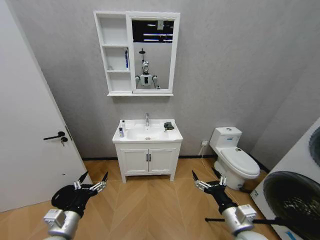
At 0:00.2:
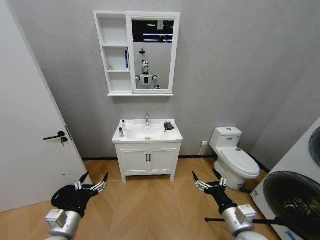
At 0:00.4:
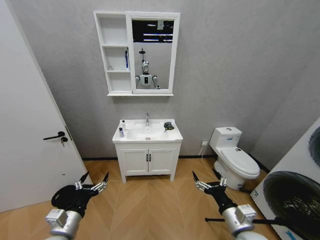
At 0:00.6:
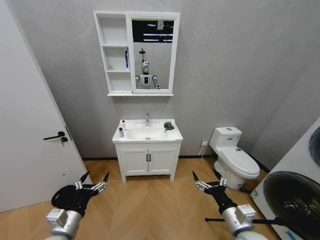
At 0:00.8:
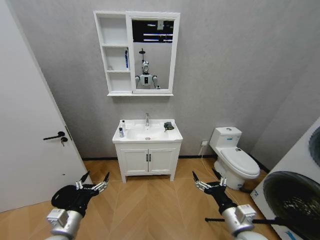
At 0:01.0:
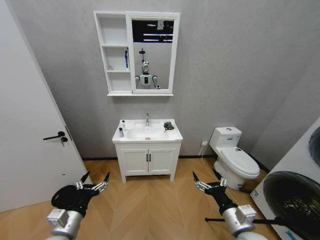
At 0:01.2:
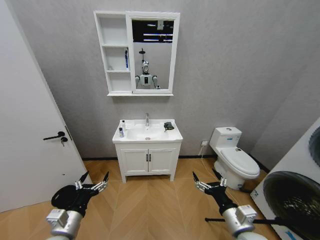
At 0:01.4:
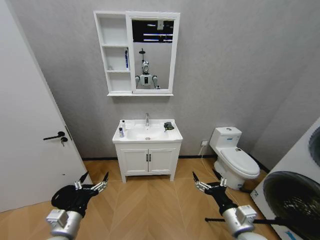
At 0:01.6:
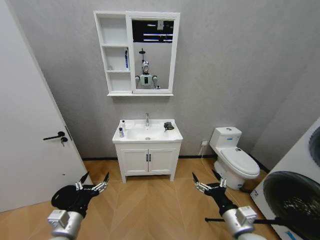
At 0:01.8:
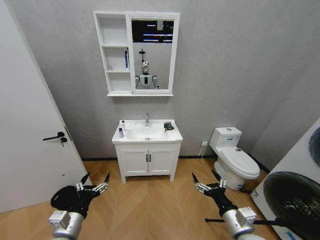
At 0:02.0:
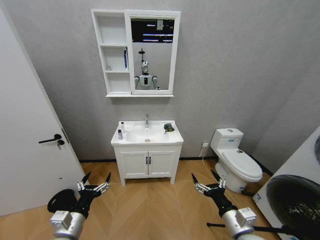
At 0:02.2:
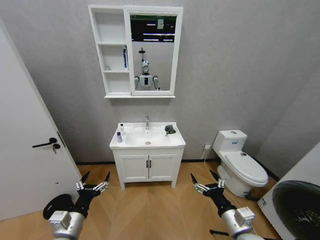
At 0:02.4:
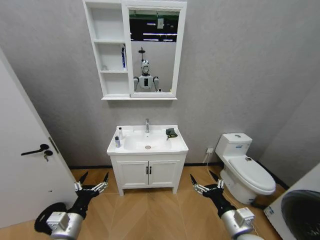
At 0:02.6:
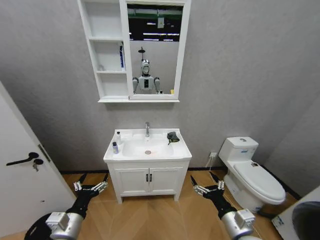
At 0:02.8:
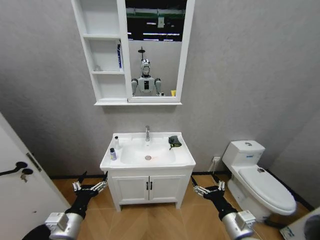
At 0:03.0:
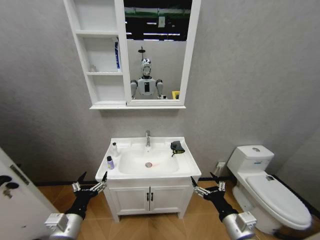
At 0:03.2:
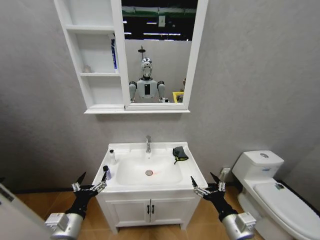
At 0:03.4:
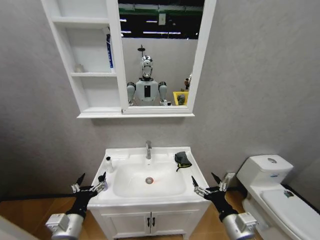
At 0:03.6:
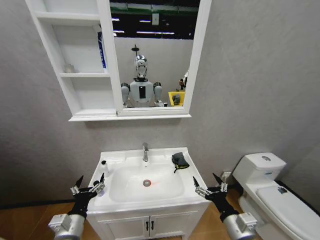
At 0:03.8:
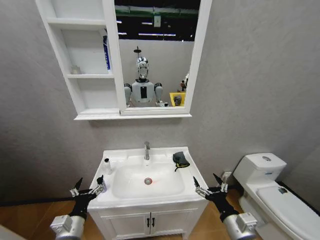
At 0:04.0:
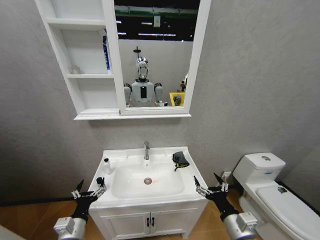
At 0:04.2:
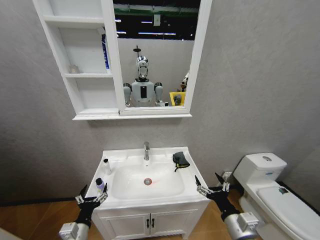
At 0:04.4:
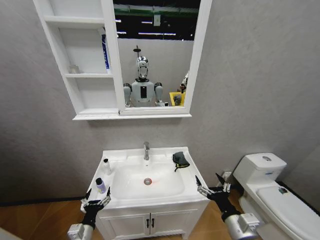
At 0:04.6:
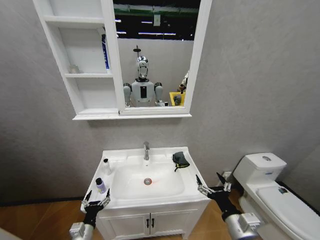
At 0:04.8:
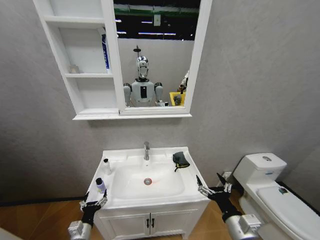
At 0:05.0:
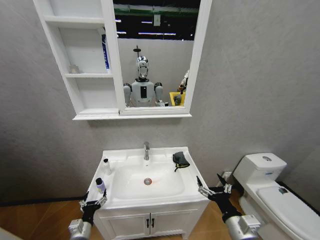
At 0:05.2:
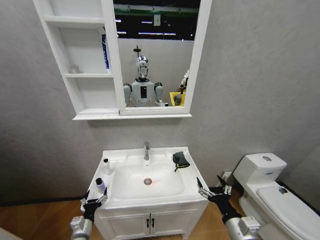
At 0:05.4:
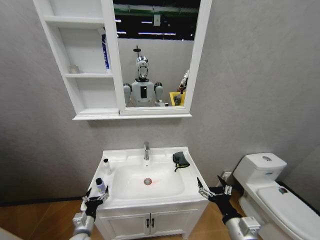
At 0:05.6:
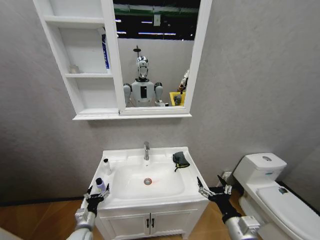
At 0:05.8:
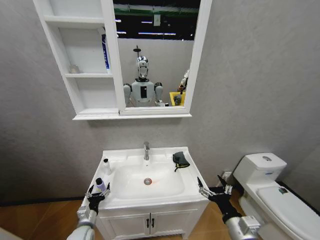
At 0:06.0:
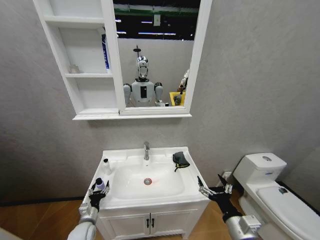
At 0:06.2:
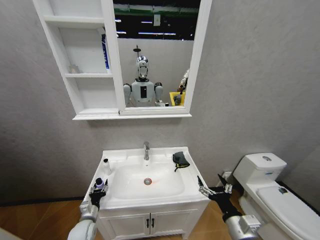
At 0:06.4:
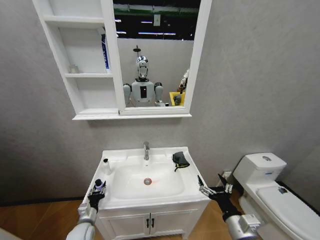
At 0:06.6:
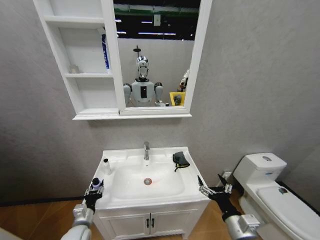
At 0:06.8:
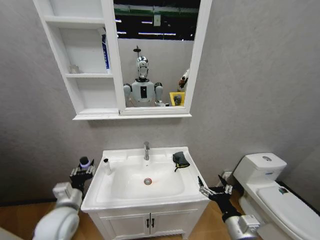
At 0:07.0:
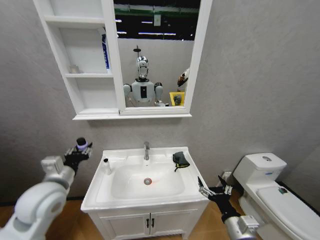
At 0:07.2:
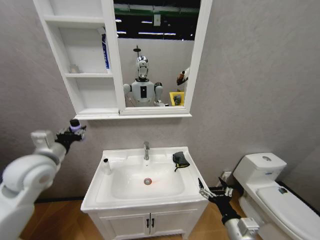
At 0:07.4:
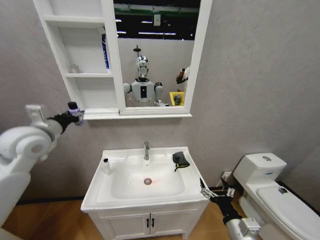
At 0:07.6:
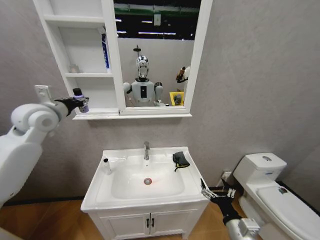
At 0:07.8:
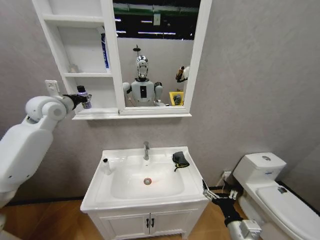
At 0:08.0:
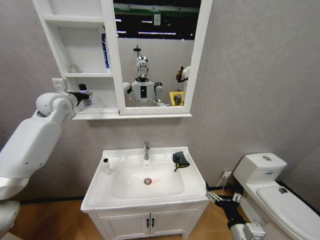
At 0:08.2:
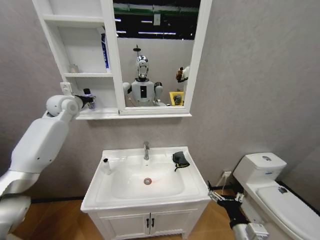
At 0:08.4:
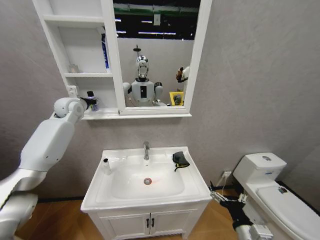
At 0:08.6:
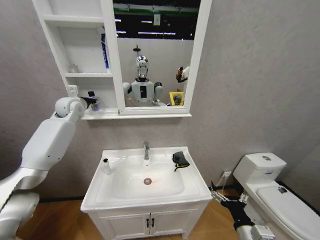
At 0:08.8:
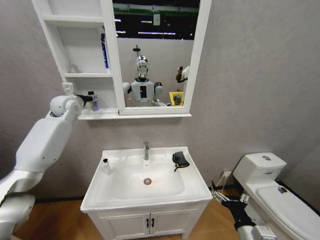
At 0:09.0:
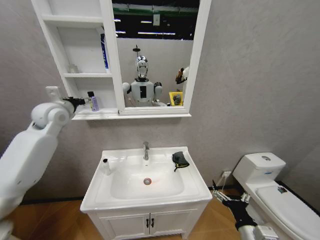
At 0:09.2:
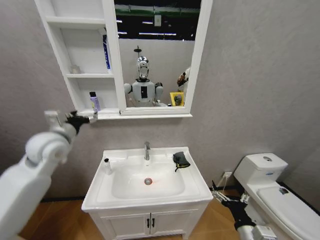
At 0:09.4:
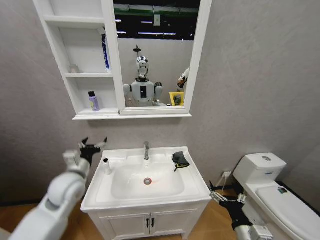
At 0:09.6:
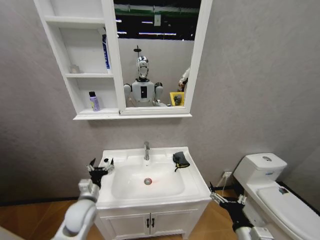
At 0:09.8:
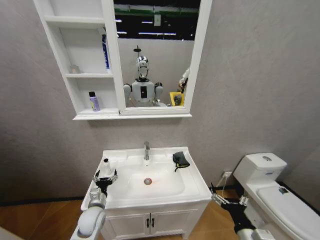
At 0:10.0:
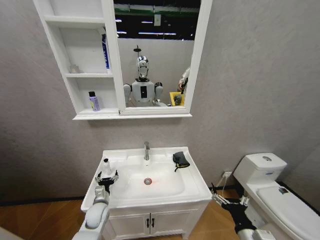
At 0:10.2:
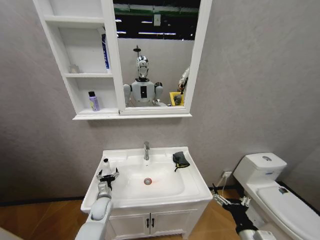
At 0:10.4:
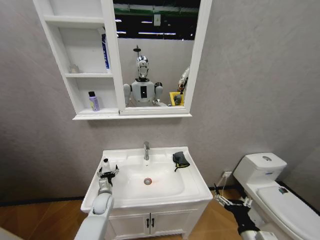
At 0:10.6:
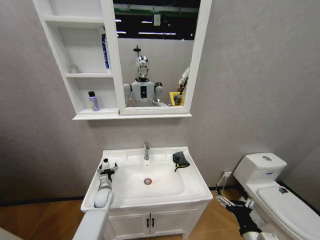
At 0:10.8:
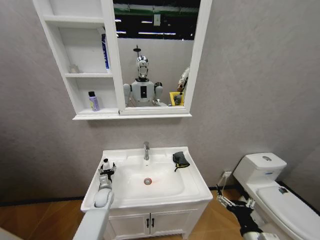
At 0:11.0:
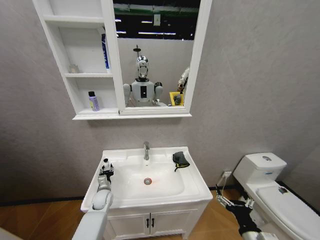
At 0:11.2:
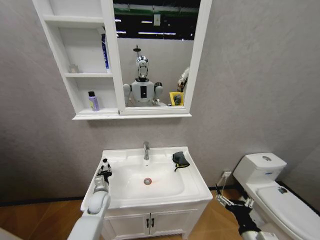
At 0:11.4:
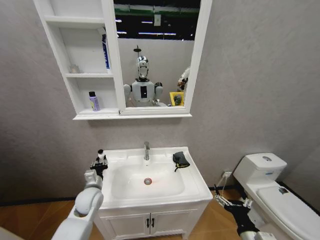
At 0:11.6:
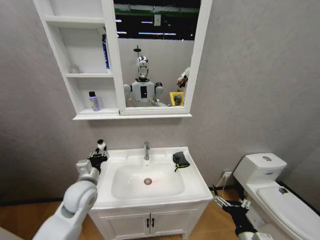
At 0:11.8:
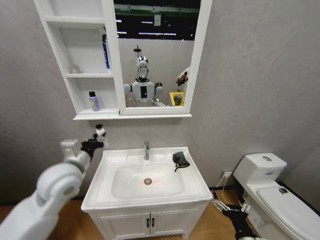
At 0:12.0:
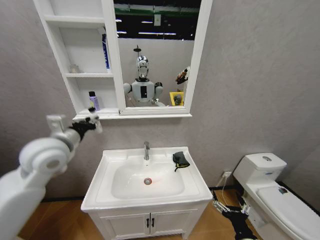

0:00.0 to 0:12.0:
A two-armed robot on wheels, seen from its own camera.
Task of the whole recording: Move facial cleanser and shampoo from washbasin to cabinet, then wipe washbasin with towel.
0:03.0 to 0:04.4: The left gripper moves downward, roughly 15 cm.
0:04.4 to 0:06.0: The left gripper travels forward by approximately 10 cm.
0:06.0 to 0:07.6: The left gripper heads upward, covering about 50 cm, and closes.
0:07.6 to 0:09.0: The left gripper is displaced forward by approximately 5 cm, and opens.
0:09.0 to 0:10.4: The left gripper moves downward, some 50 cm.
0:10.4 to 0:12.0: The left gripper shifts roughly 40 cm upward, and closes.

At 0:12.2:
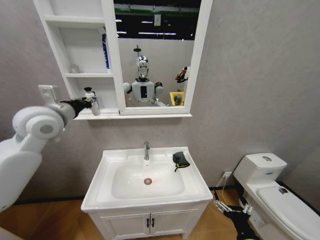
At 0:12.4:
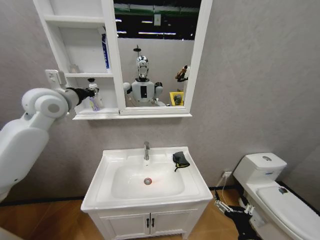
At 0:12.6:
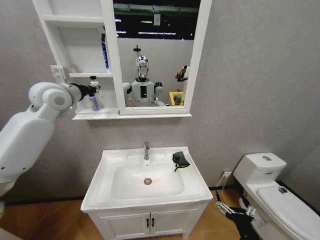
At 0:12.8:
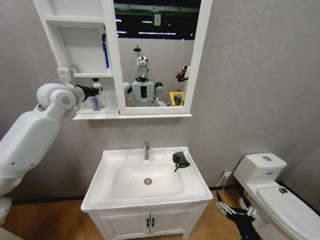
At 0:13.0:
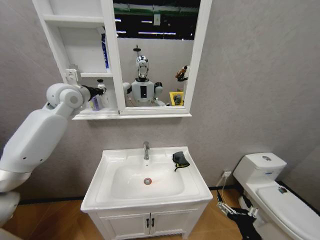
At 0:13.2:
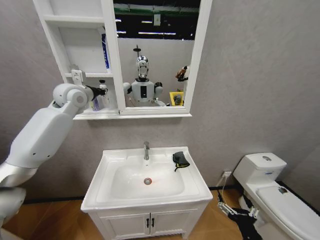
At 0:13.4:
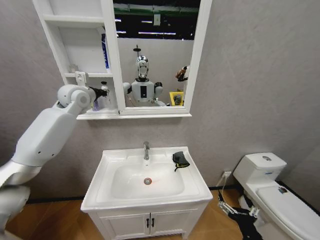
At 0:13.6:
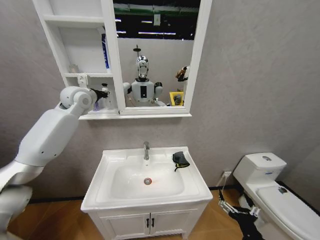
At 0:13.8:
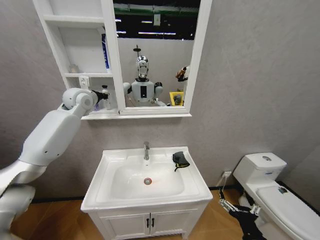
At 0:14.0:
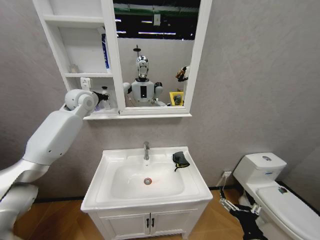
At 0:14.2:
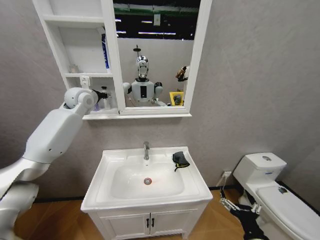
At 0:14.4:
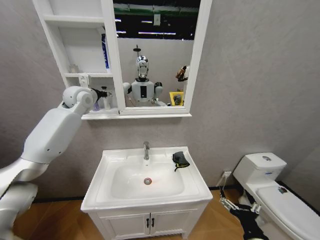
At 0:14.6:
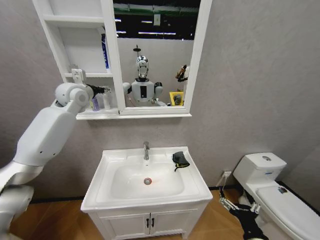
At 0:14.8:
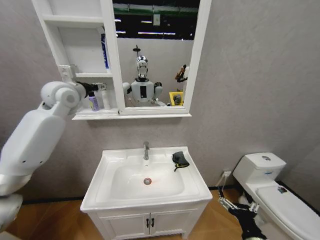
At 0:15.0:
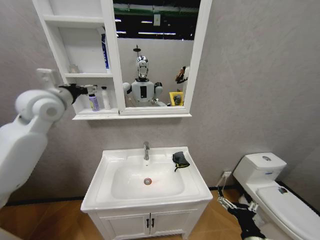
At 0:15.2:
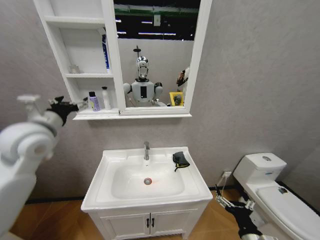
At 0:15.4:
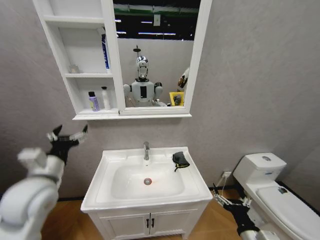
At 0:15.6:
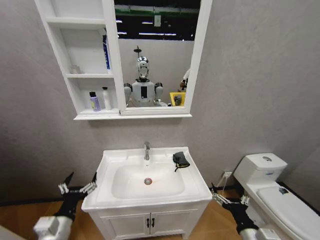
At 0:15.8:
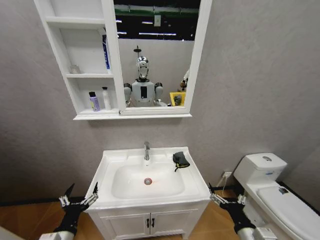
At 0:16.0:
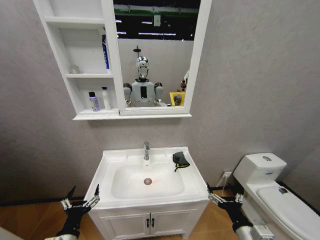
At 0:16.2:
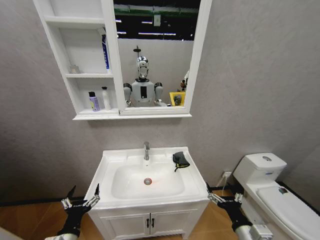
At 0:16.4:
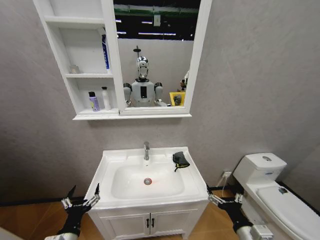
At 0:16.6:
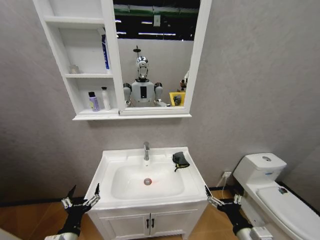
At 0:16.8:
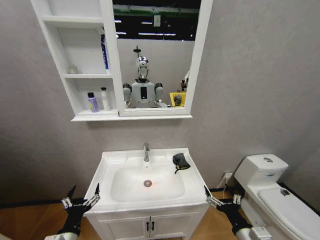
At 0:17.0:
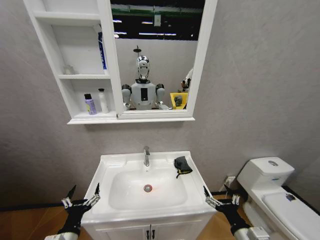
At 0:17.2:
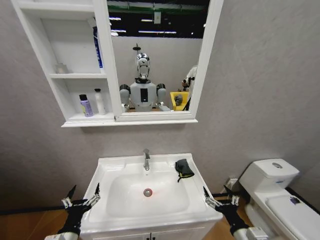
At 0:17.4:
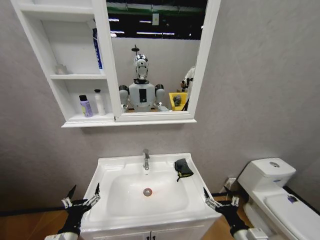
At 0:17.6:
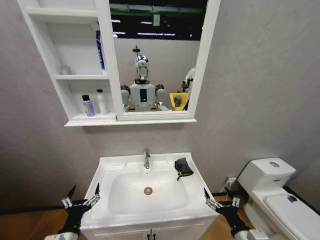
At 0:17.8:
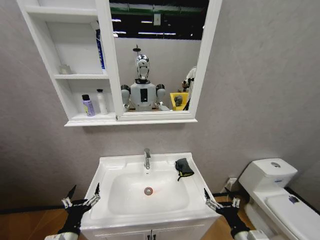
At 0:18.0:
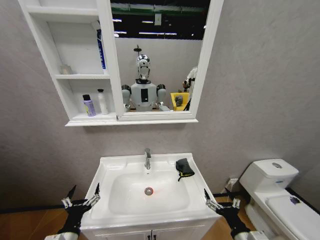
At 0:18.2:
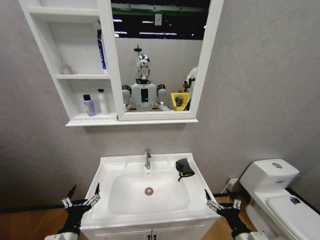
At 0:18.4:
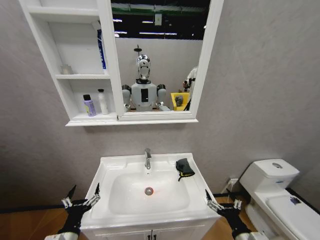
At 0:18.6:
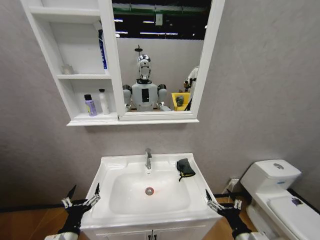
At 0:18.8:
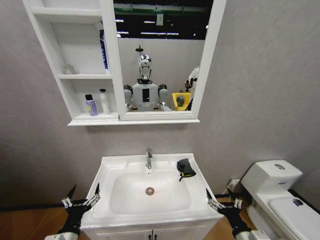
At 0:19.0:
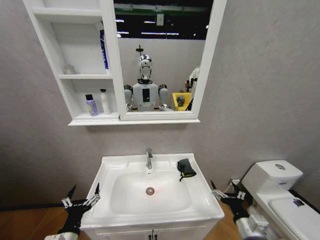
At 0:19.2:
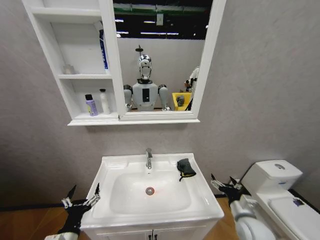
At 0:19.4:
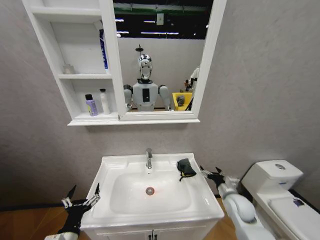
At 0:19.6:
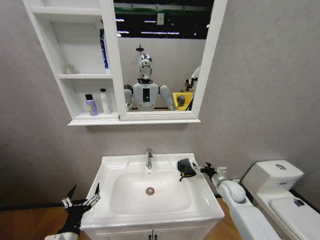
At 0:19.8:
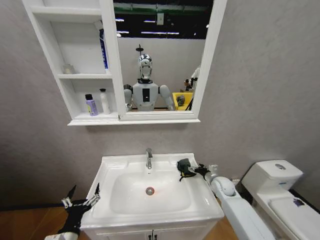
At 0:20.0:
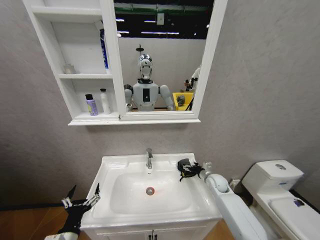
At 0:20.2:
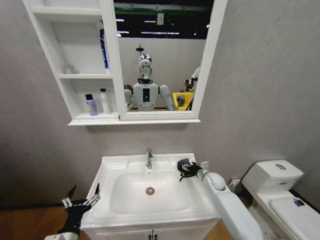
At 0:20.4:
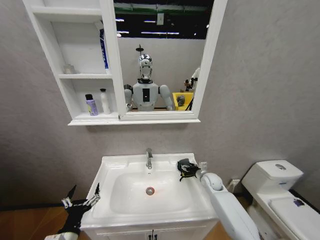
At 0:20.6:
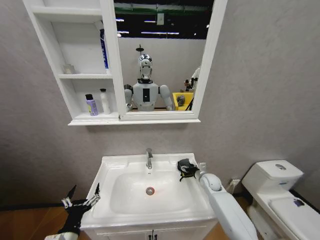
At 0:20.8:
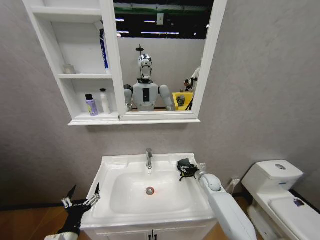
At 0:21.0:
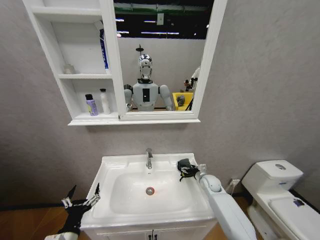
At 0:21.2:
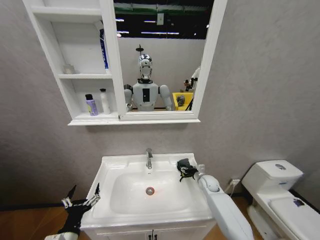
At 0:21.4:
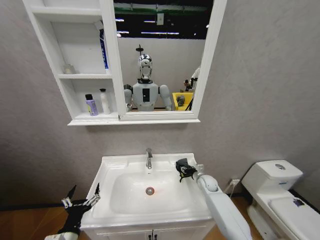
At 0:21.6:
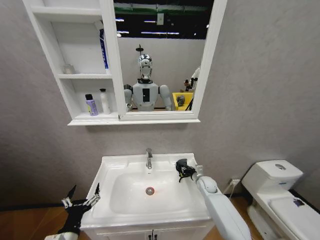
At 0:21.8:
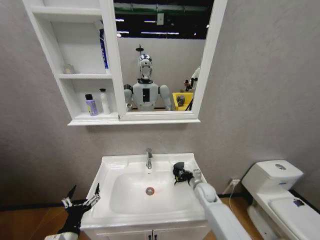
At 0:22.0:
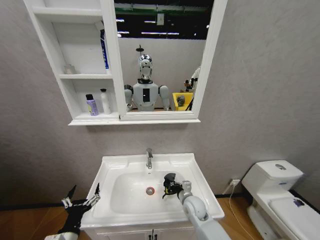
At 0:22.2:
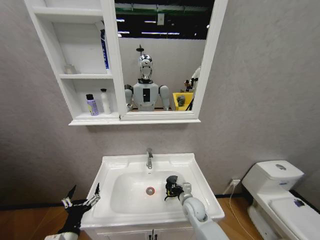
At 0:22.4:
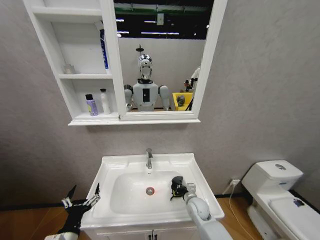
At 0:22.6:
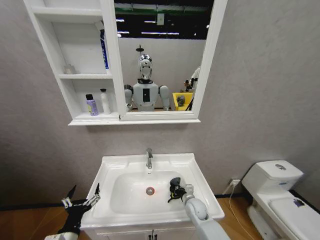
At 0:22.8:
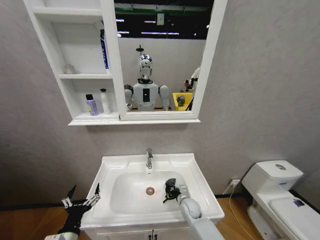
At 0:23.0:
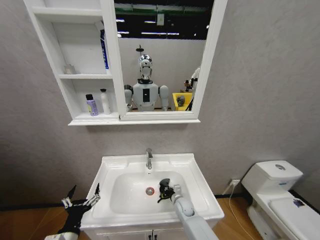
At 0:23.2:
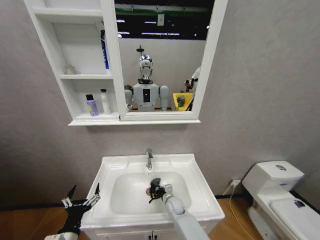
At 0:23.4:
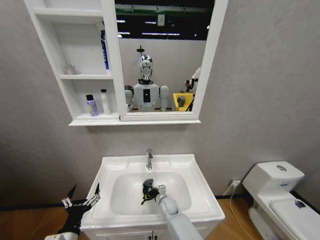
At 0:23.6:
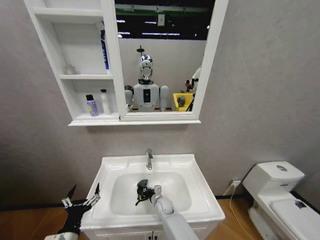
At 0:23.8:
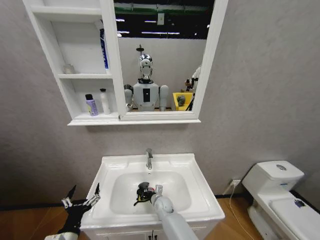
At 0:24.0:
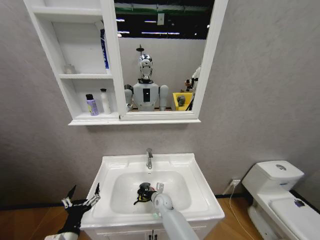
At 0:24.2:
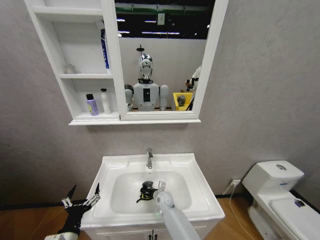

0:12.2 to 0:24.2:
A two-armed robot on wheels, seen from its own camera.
Task of the whole recording: Move facial cleanser and shampoo from washbasin to cabinet, then wipe washbasin with towel.
0:12.2 to 0:13.8: The left gripper heads forward, covering roughly 15 cm.
0:13.8 to 0:15.2: The left gripper heads backward, covering approximately 20 cm, and opens its fingers.
0:15.2 to 0:16.6: The left gripper moves downward and backward, some 35 cm.
0:18.2 to 0:19.8: The right gripper is displaced forward by some 30 cm.
0:19.8 to 0:21.2: The right gripper shifts by some 5 cm.
0:21.2 to 0:22.6: The right gripper goes about 15 cm to the left, backward and downward, and closes up.
0:22.6 to 0:24.2: The right gripper shifts approximately 15 cm to the left.
